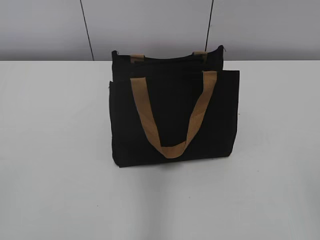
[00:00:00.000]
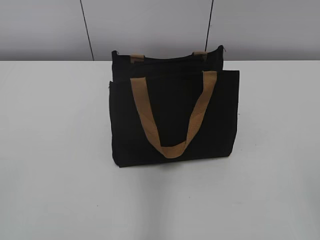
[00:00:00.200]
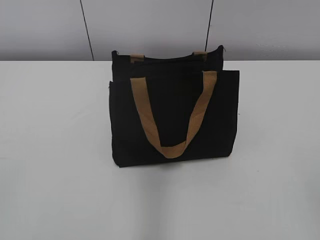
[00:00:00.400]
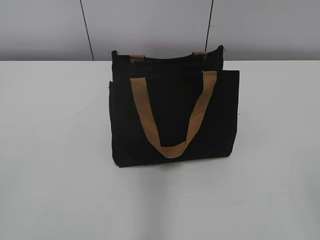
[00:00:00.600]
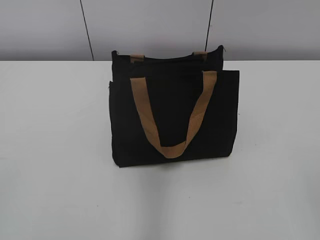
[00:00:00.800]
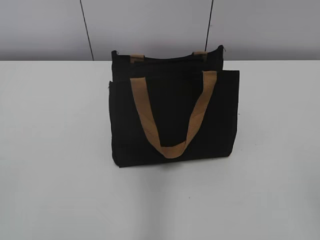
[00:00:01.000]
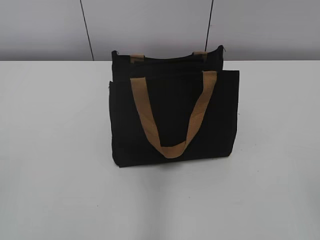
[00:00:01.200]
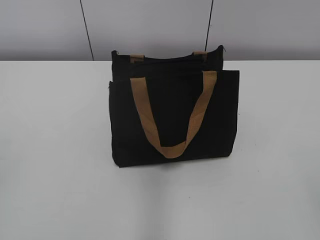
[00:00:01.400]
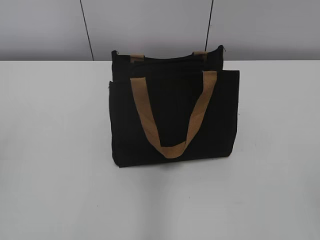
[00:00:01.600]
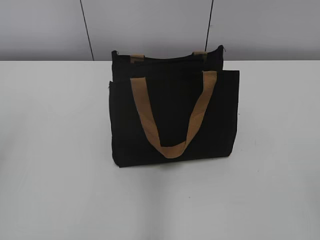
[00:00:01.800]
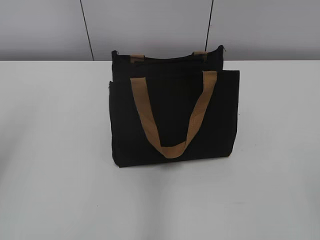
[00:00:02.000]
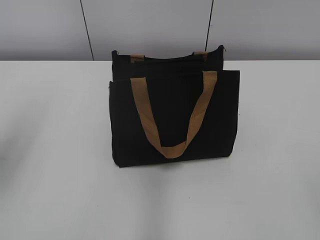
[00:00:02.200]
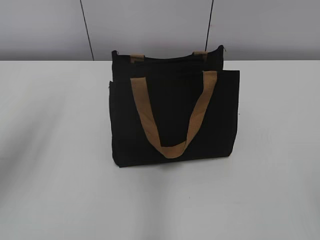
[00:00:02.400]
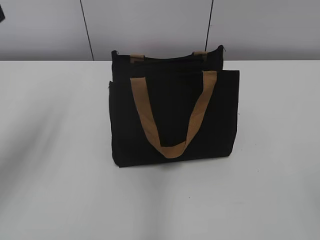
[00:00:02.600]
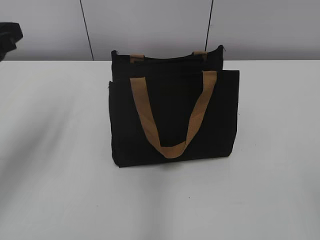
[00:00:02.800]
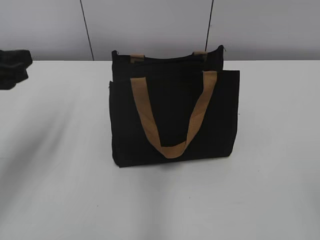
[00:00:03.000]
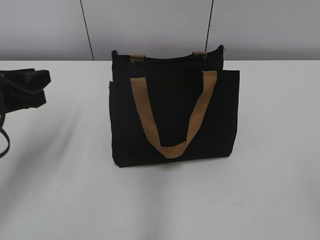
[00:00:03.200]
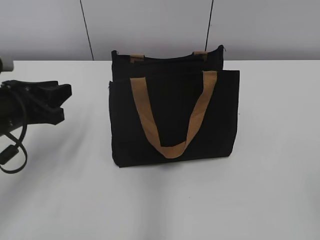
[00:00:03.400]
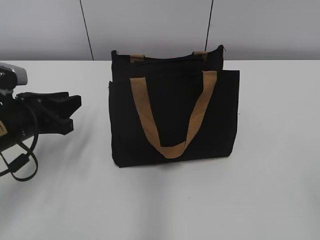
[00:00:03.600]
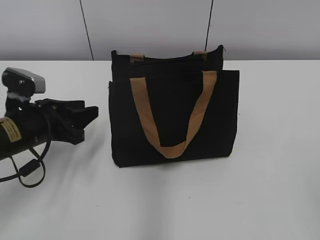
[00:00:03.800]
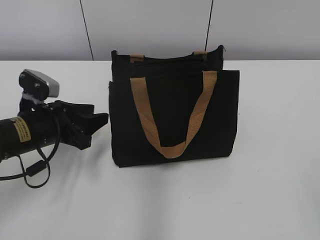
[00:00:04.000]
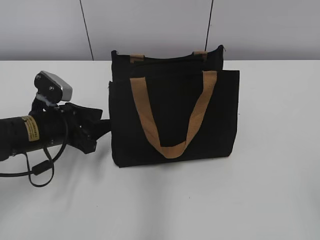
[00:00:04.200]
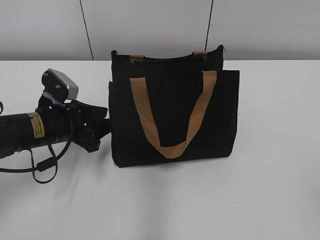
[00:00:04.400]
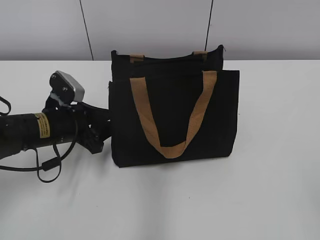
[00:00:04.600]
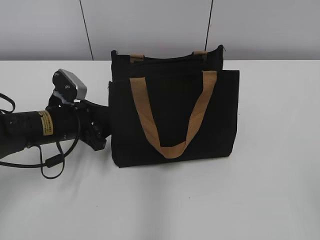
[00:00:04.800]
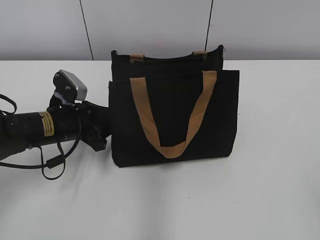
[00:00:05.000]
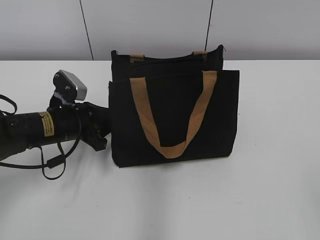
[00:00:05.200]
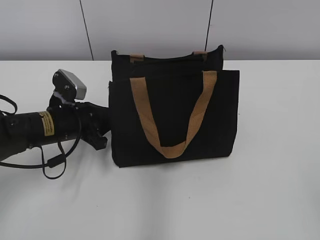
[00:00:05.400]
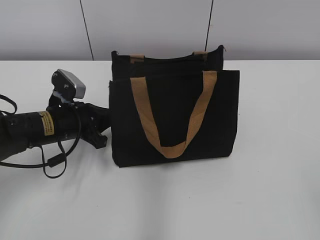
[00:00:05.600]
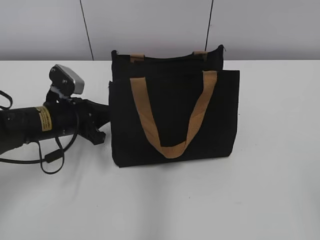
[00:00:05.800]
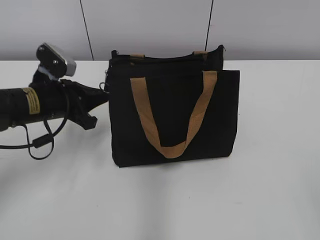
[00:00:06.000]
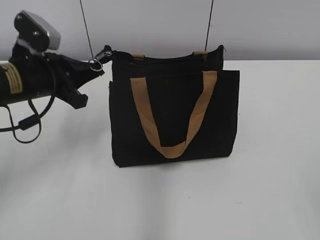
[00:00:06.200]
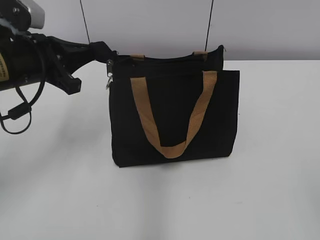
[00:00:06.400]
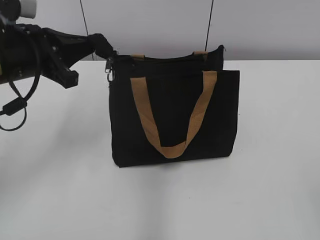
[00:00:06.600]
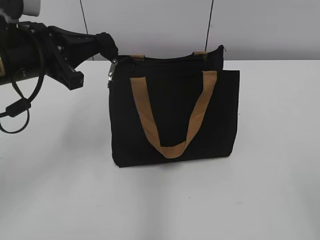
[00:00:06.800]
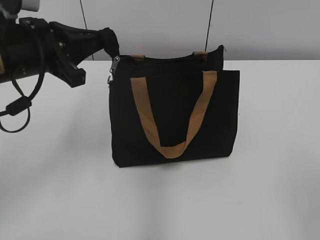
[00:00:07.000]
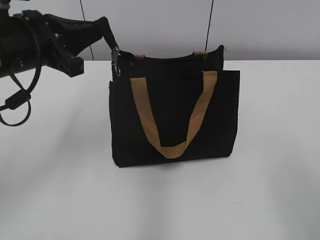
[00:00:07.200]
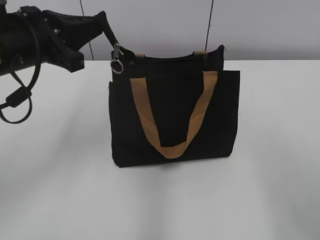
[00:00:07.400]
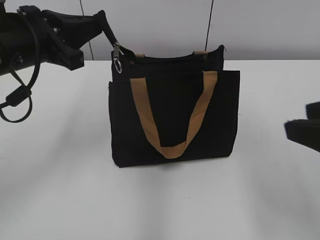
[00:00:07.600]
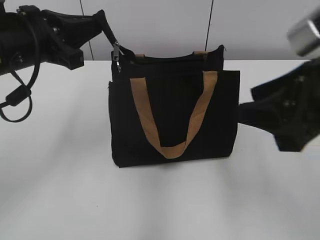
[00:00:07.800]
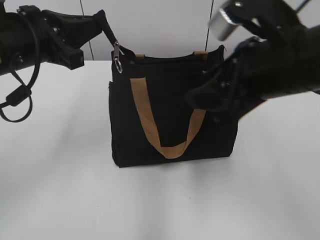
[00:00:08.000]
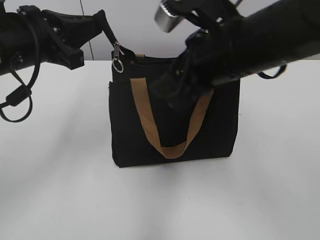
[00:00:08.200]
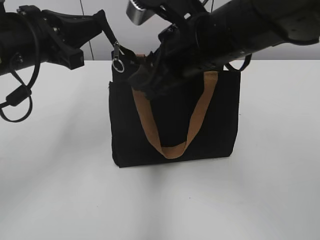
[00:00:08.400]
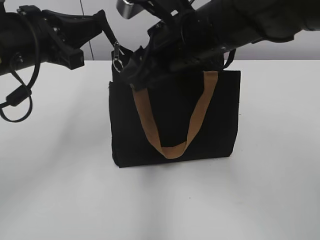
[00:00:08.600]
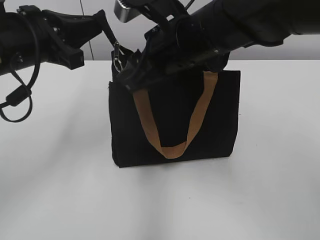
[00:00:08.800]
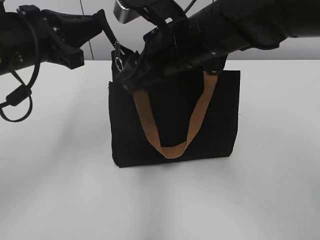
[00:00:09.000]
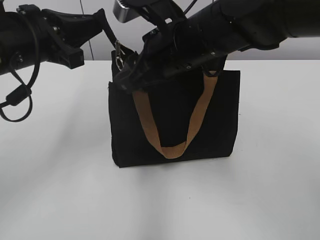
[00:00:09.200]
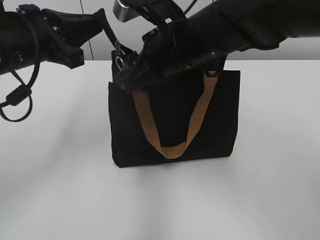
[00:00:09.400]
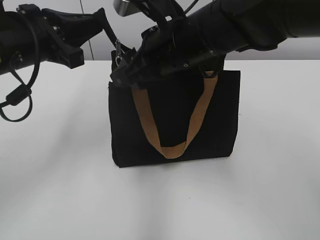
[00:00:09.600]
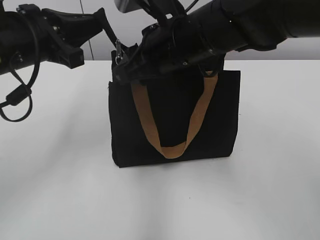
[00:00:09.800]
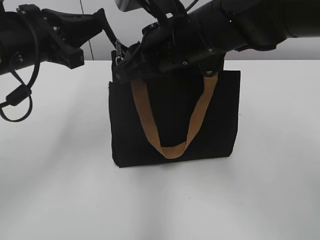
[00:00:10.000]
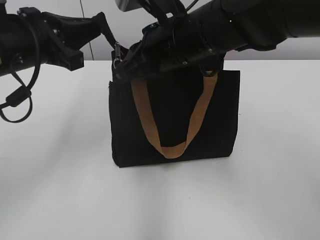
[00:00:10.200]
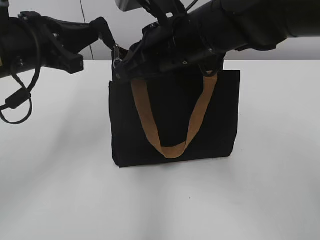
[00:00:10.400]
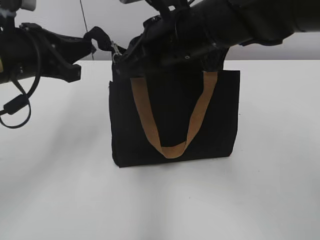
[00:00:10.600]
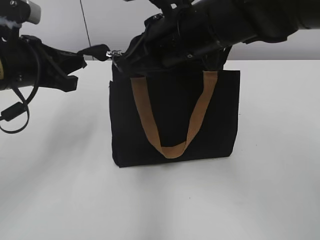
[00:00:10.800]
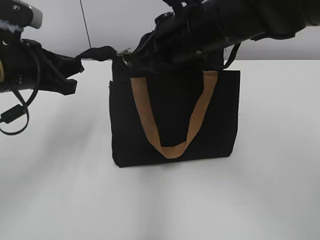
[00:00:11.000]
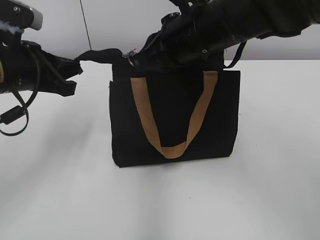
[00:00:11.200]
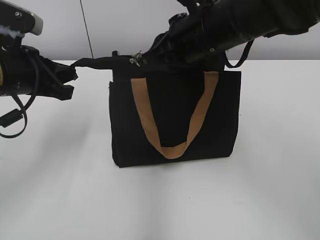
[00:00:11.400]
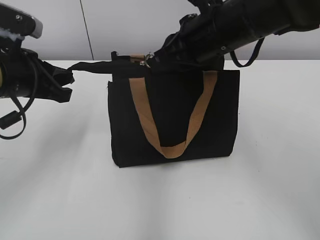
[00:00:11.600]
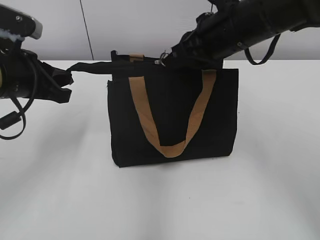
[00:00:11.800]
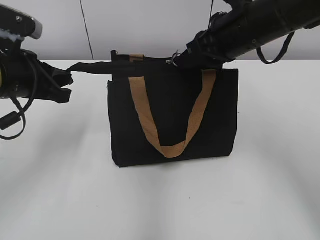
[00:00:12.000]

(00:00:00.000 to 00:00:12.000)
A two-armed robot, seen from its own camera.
00:00:01.600 - 00:00:03.000: The left gripper goes approximately 20 cm forward and downward.
00:00:03.000 - 00:00:04.400: The left gripper travels downward, to the right and forward by approximately 15 cm, and opens.
00:00:04.400 - 00:00:06.000: The left gripper closes its fingers.
00:00:06.000 - 00:00:07.600: The left gripper goes approximately 10 cm upward; the right gripper moves forward, roughly 15 cm.
00:00:07.600 - 00:00:09.000: The right gripper heads to the left and forward, covering approximately 25 cm.
00:00:09.000 - 00:00:10.400: The right gripper closes.
00:00:10.400 - 00:00:12.000: The right gripper heads to the right, covering roughly 10 cm.

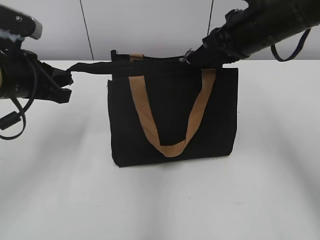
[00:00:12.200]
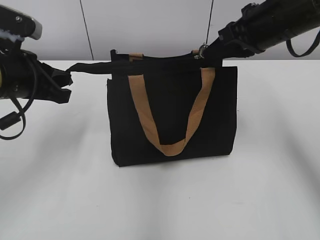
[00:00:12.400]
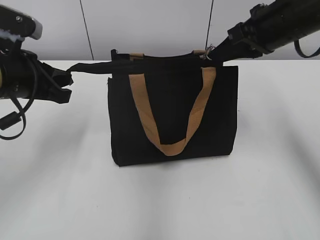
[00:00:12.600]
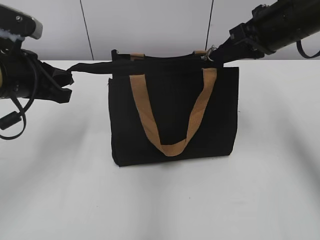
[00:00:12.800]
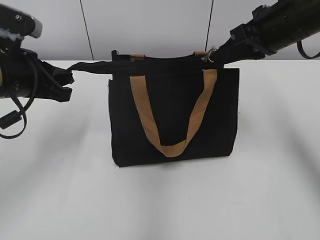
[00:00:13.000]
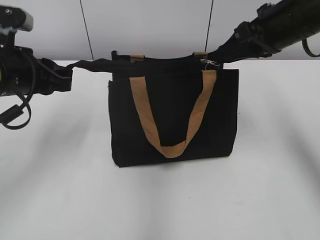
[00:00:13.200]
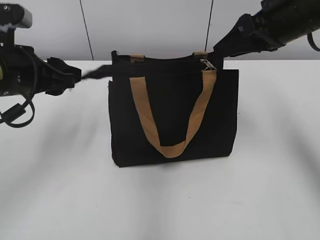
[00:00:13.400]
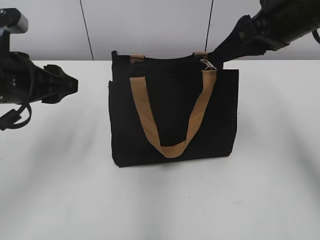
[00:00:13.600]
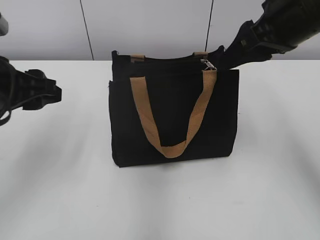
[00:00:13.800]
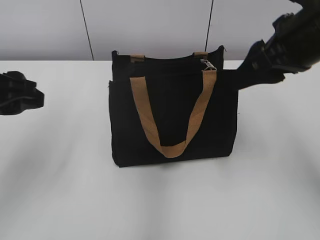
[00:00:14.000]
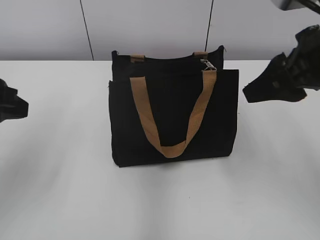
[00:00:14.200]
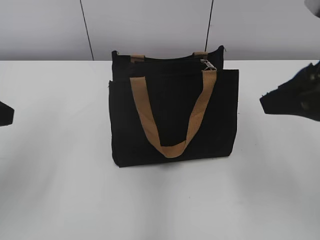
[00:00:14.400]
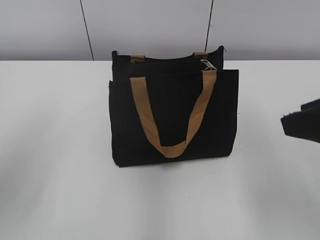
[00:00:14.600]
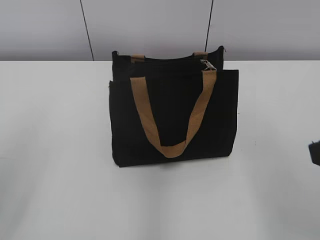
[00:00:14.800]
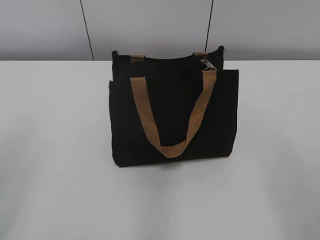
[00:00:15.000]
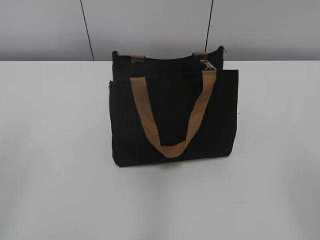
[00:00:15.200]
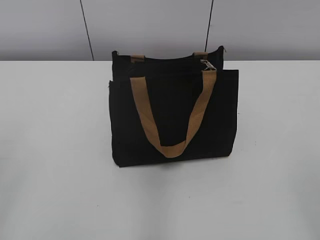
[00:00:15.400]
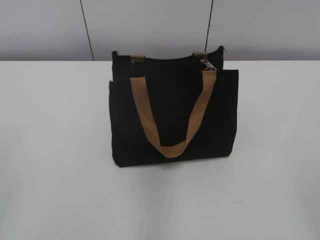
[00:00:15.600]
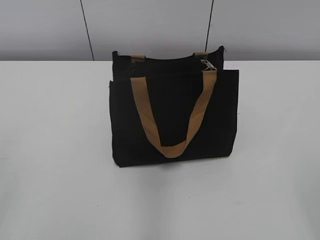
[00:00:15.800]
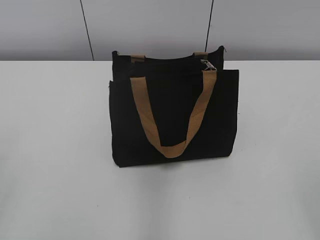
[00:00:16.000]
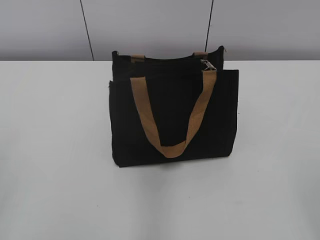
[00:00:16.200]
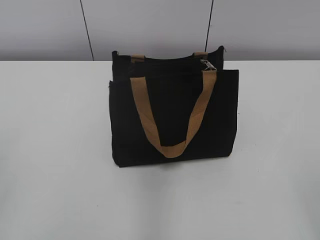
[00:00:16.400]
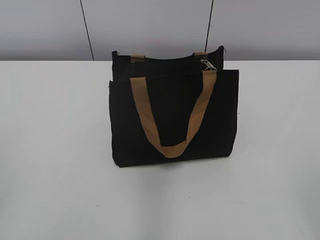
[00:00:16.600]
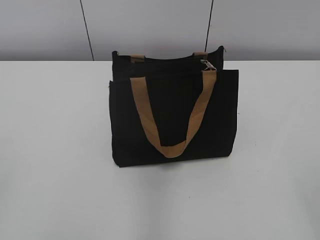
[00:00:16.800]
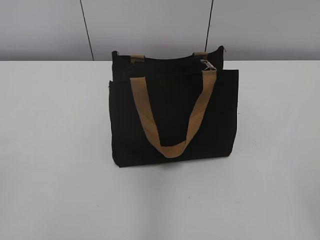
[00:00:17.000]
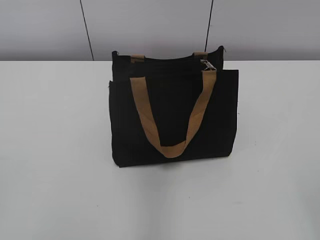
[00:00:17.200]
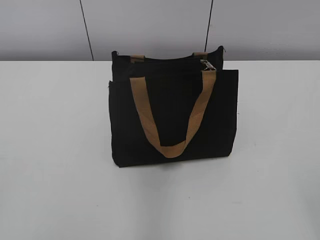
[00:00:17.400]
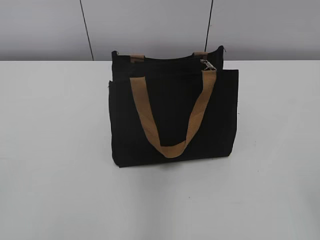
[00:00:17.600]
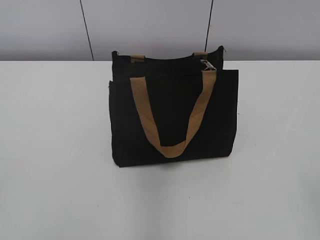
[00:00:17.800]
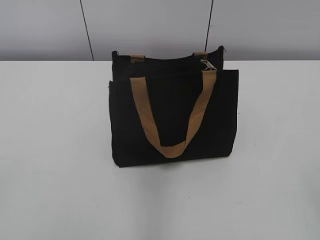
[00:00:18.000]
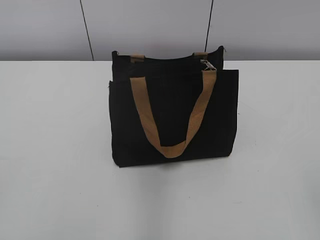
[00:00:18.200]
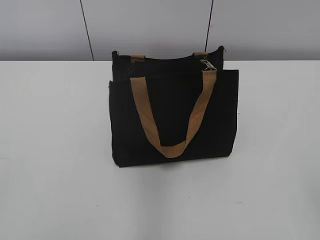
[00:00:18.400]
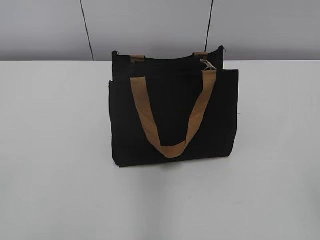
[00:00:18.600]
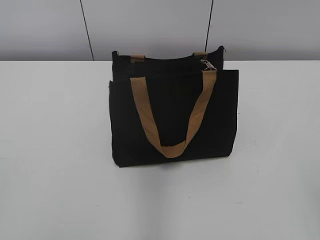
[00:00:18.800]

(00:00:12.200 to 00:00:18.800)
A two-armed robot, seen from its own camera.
00:00:12.200 - 00:00:13.800: The left gripper opens its fingers. The right gripper moves approximately 5 cm, and opens up.
00:00:13.800 - 00:00:15.400: The left gripper goes approximately 20 cm backward and to the left. The right gripper heads backward, covering about 30 cm.
